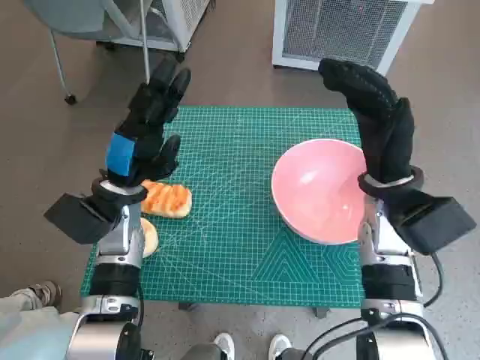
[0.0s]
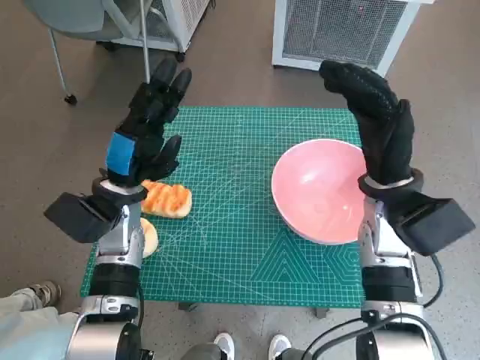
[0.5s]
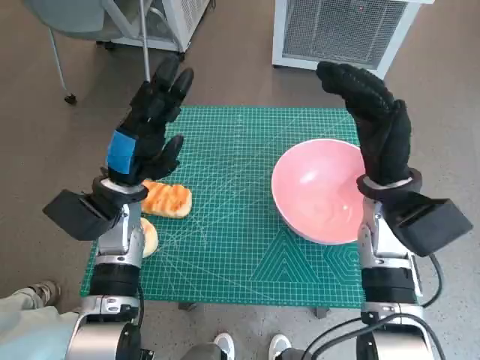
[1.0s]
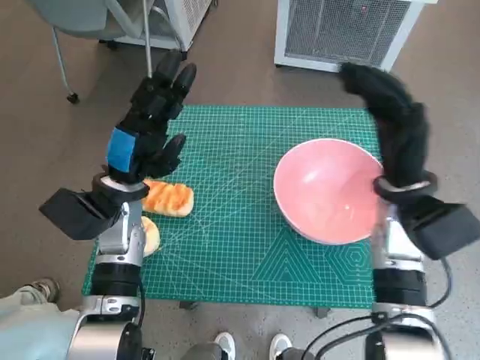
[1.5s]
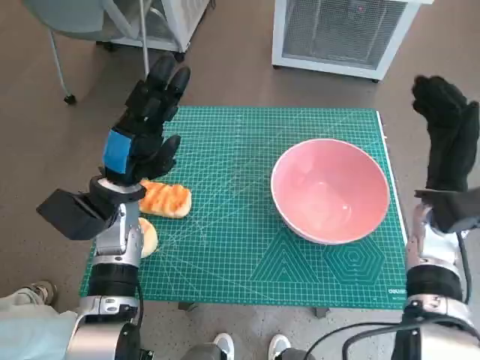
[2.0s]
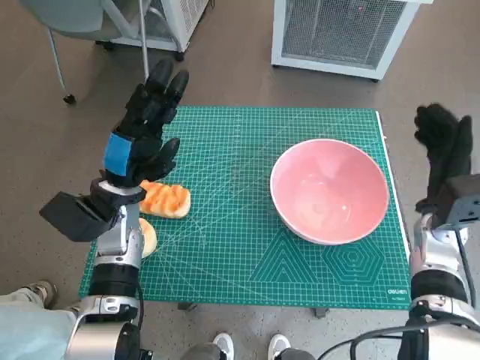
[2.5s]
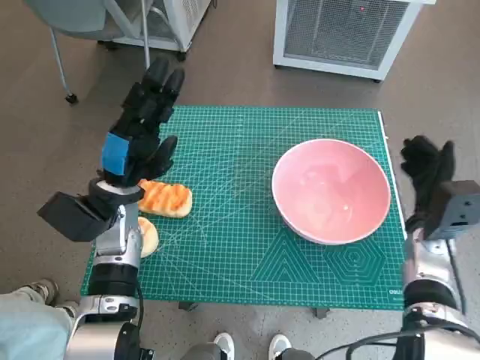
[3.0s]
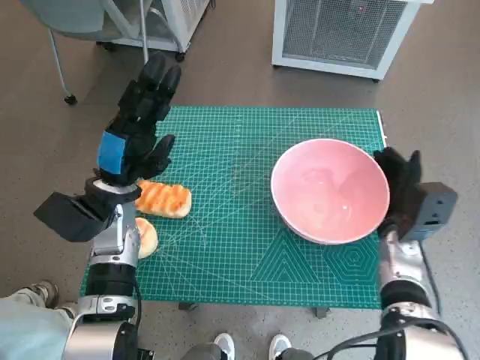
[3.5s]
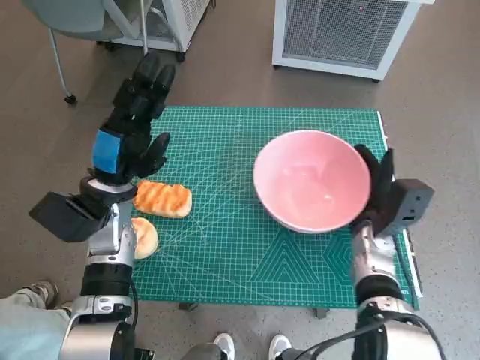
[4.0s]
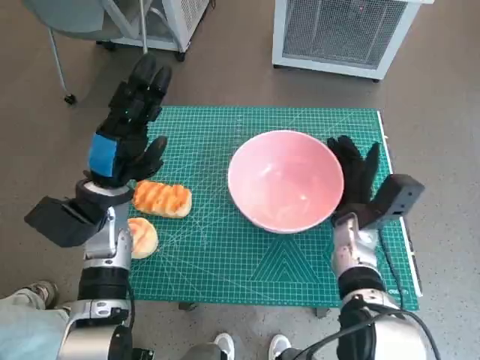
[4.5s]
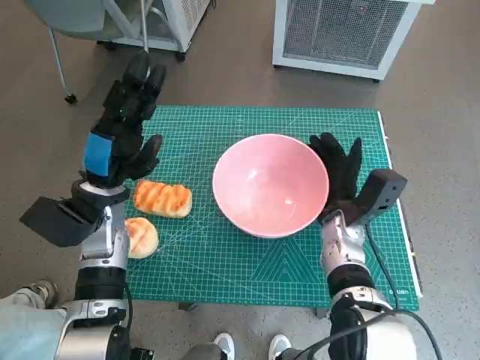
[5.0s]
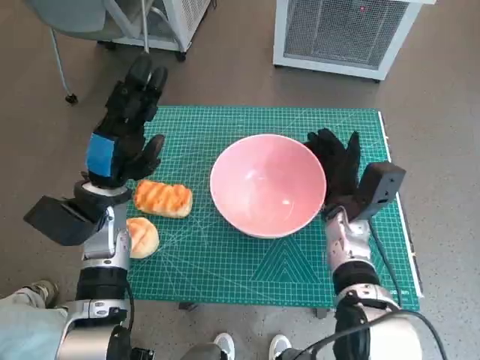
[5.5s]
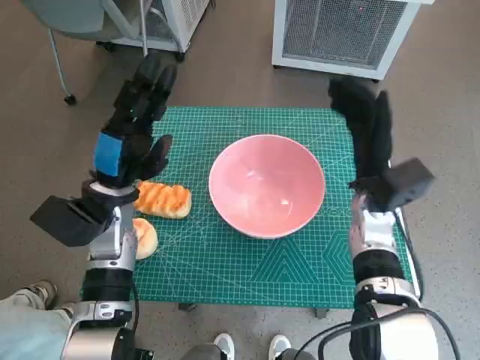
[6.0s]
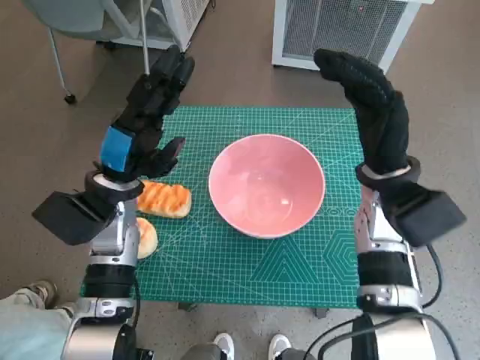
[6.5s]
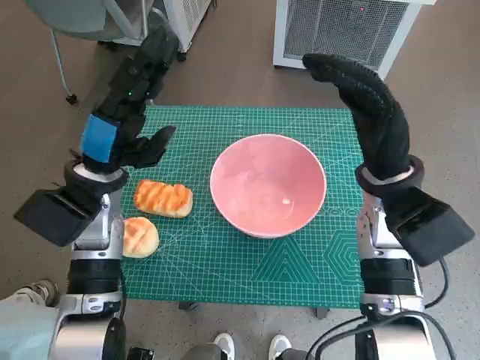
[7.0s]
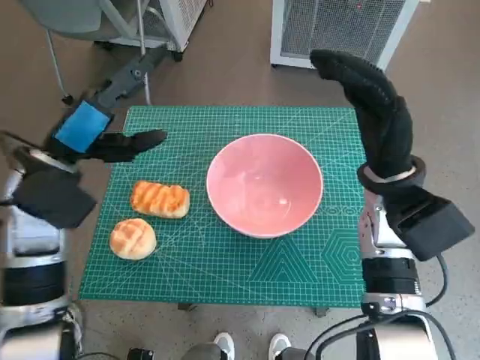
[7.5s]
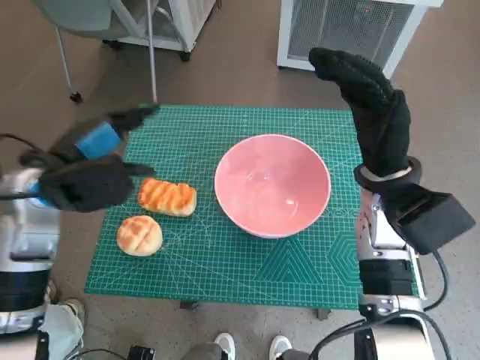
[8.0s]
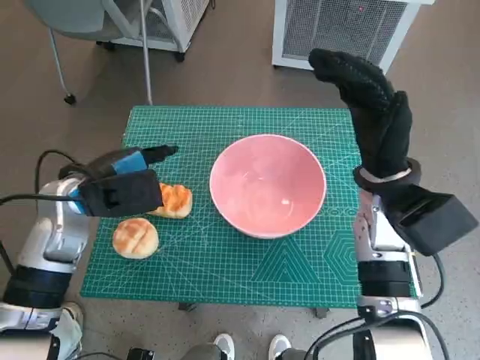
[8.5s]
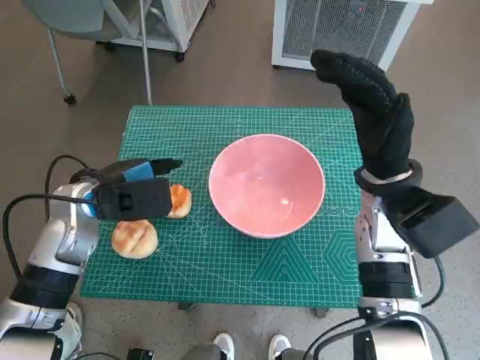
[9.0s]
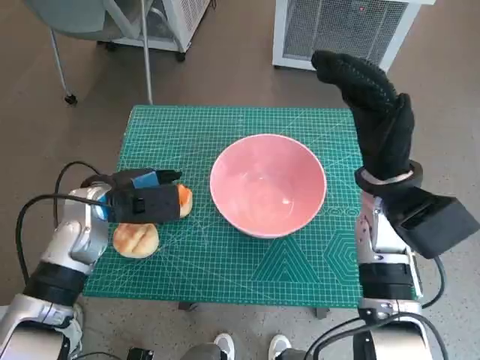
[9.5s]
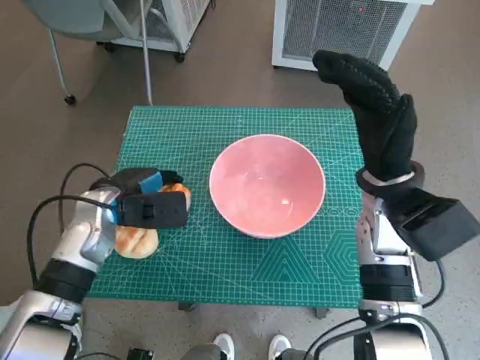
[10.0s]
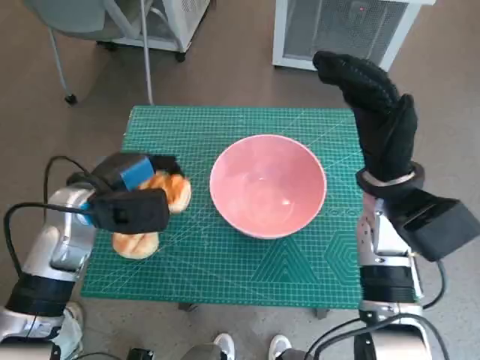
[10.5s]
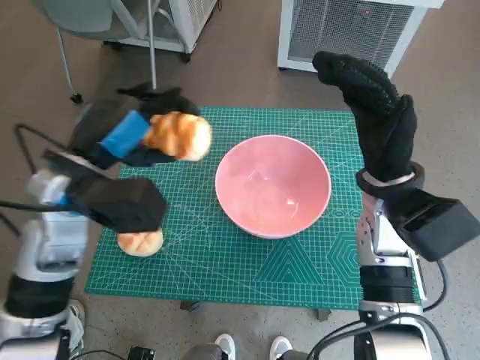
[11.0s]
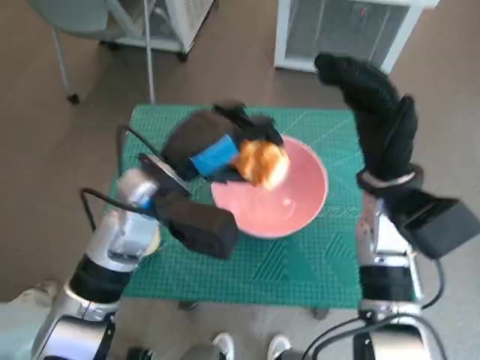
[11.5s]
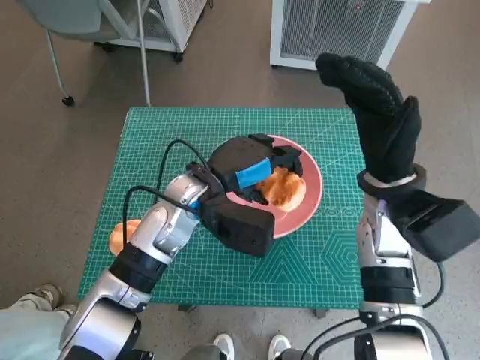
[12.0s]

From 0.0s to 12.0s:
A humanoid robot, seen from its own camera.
Task of the whole recording: Push the bowl to the center of the table and put the bread into the bowl.
Step, from 0.0s to 5.5s: Move the pink bowl to the center of table with right hand.
Step, from 6.0s to 10.0s: Grasp the long bread with left hand.
From 2.0s to 4.0s: The right hand is displaced downward and to the left by some 10 cm.
From 4.0s to 6.0s: The right hand travels upward by about 5 cm.
From 6.0s to 8.0s: The two hands go roughly 5 cm upward.
From 8.0s to 10.0s: The left hand goes some 10 cm downward.
From 10.0s to 12.0s: The left hand heads to the right, covering roughly 15 cm.

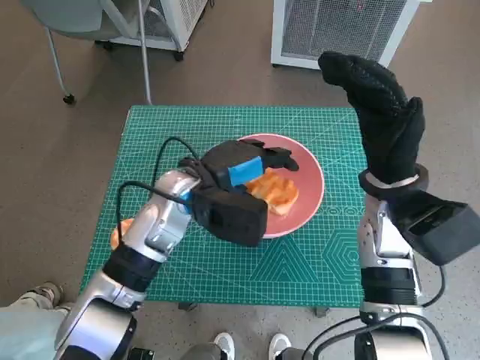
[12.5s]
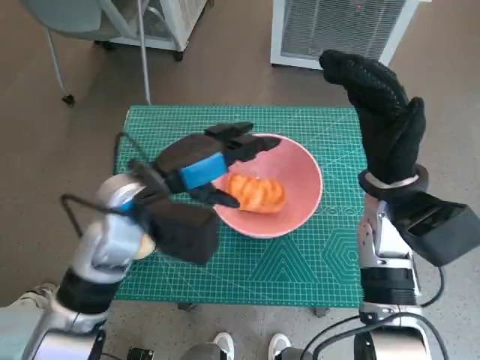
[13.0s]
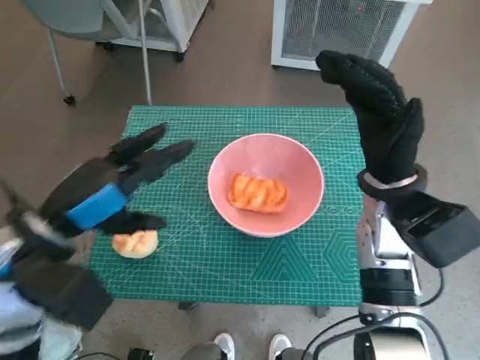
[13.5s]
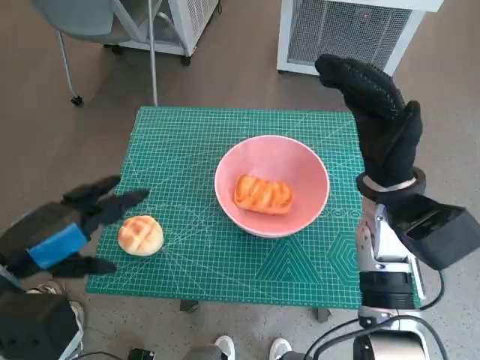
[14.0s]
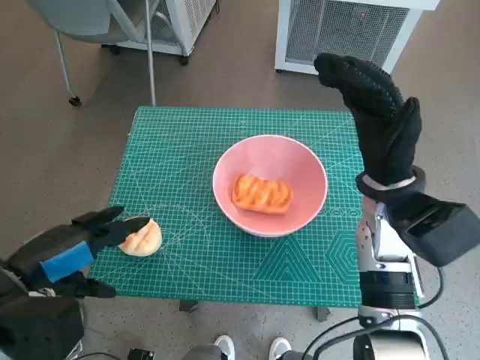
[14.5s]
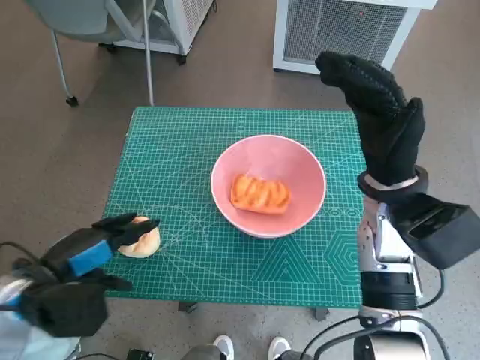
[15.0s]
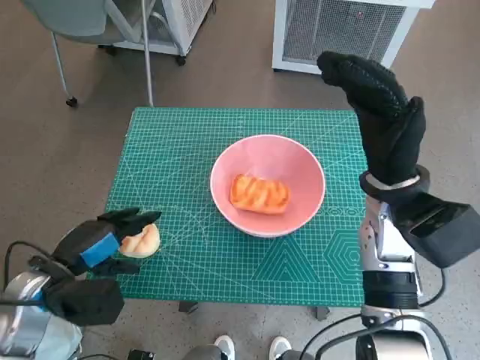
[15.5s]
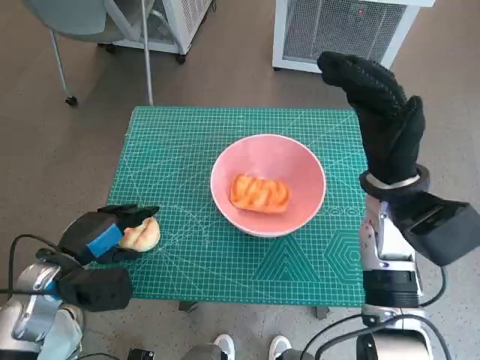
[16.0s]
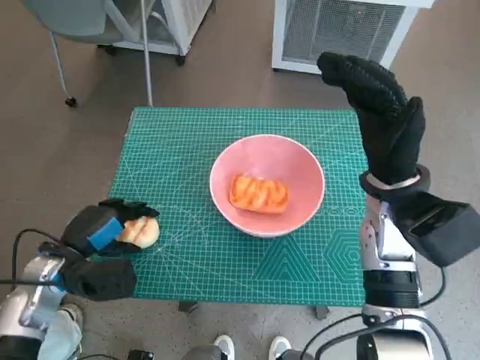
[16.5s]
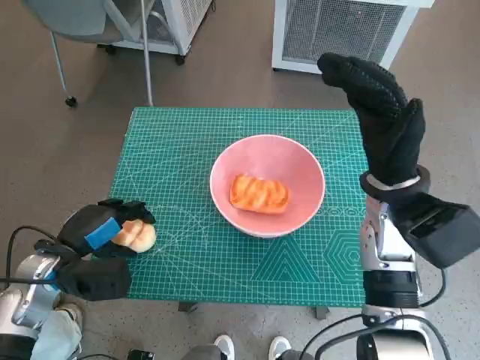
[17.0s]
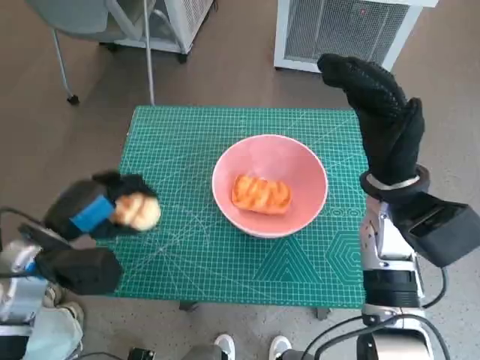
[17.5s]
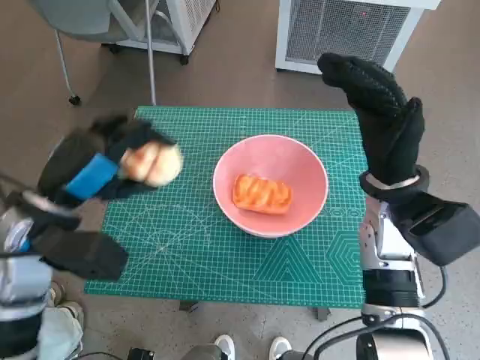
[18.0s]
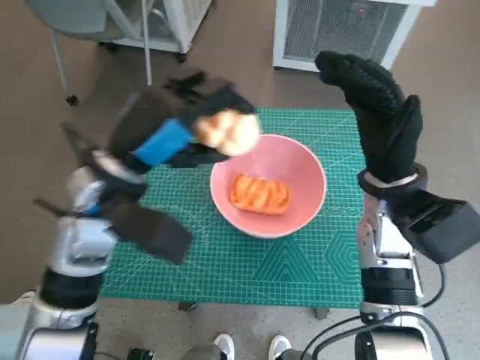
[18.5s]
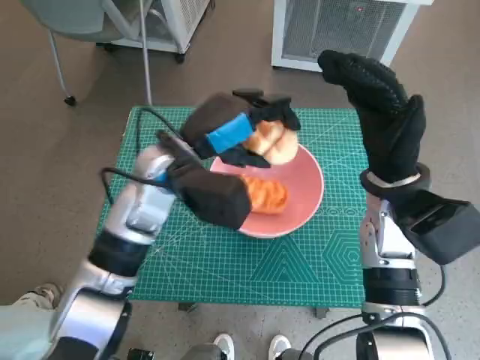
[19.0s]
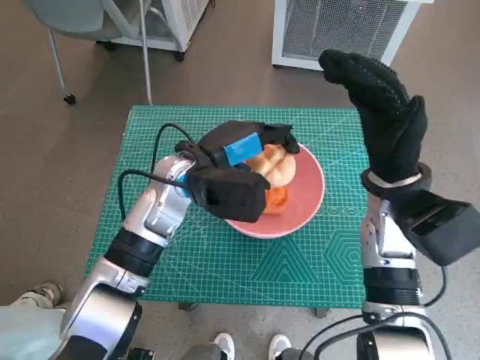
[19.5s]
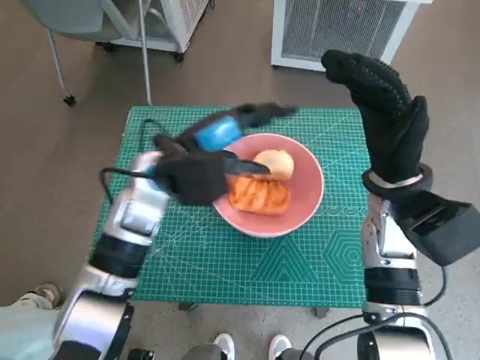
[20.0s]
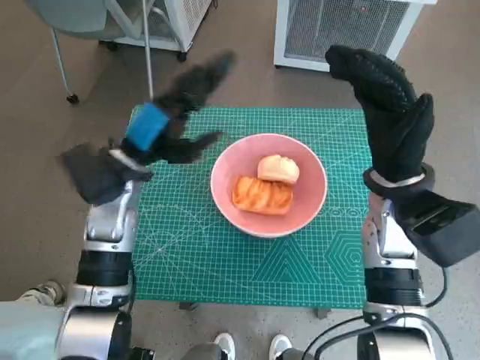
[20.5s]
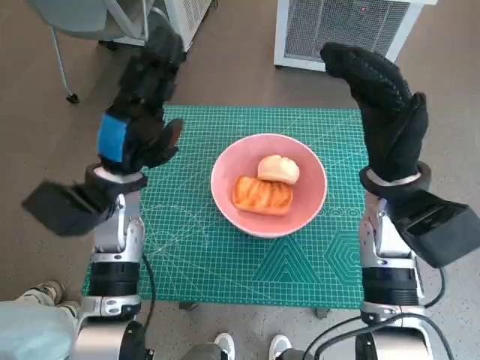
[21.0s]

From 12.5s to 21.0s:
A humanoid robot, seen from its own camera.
Task of the whole recording: Push the bowl to the center of the table and put the bread into the bowl.
Step, from 13.0s to 16.5s: Grasp the round bread with left hand.
Step, from 17.0s to 20.0s: Place the round bread in pink bowl with left hand.
From 12.5s to 14.5s: The left hand shifts about 25 cm to the left and backward.
From 14.5s to 16.5s: The left hand goes approximately 10 cm downward and forward.
From 16.5s to 19.0s: The left hand shifts approximately 25 cm to the right, upward and forward.
From 19.0s to 21.0s: The left hand is displaced to the left by about 10 cm.

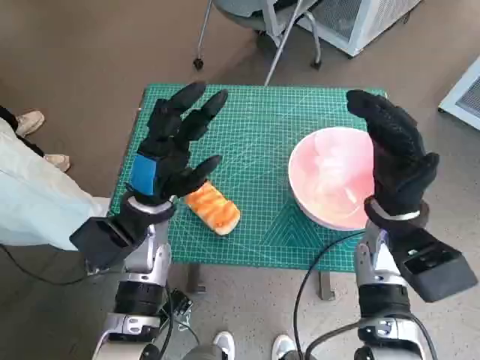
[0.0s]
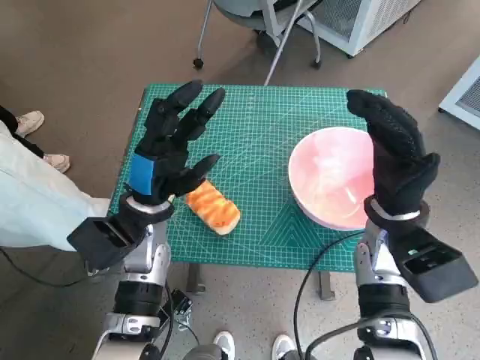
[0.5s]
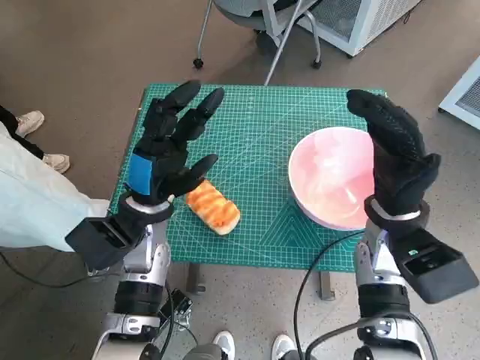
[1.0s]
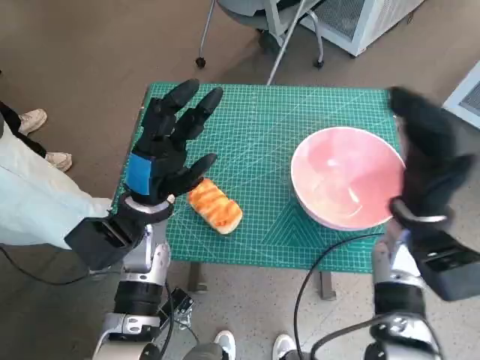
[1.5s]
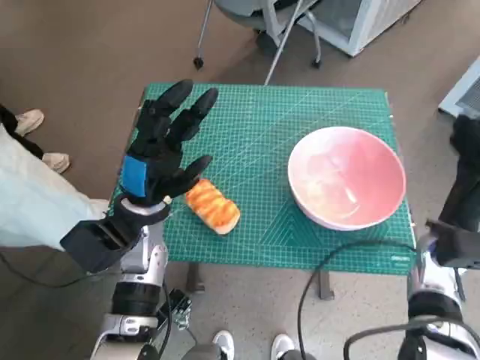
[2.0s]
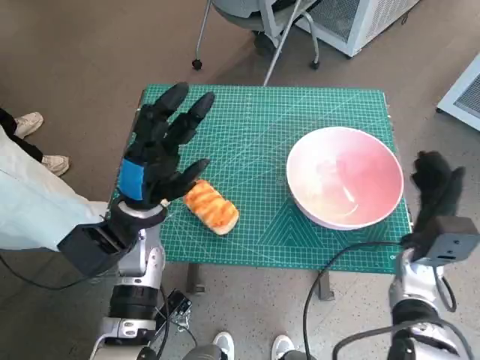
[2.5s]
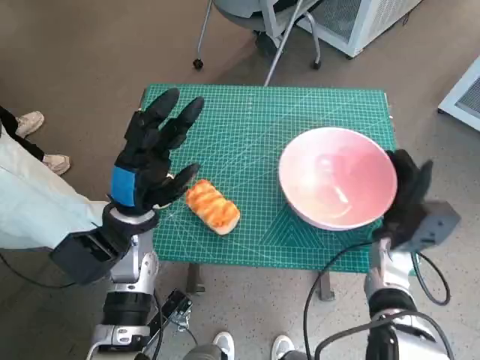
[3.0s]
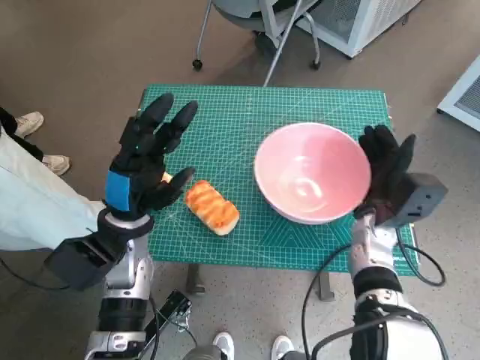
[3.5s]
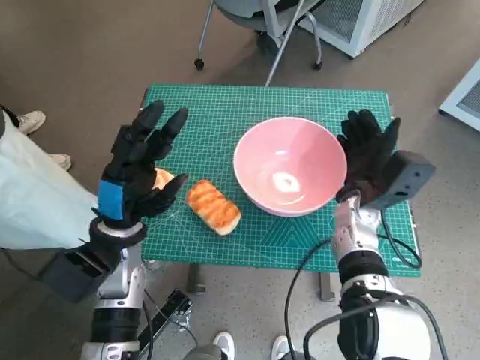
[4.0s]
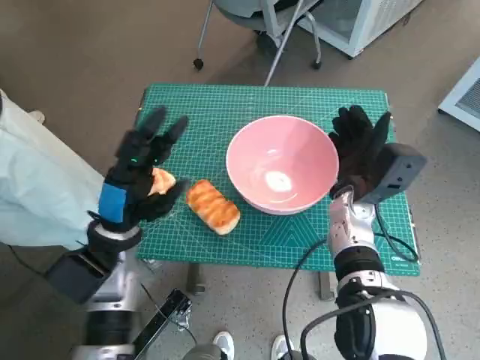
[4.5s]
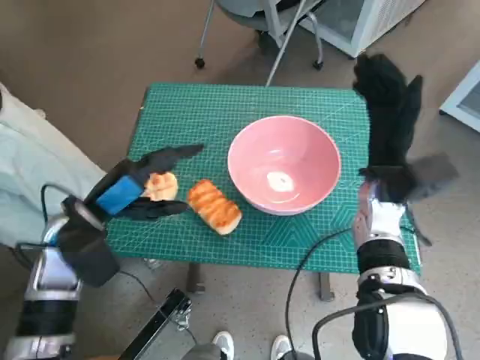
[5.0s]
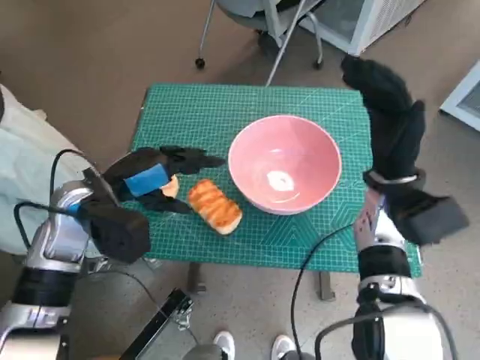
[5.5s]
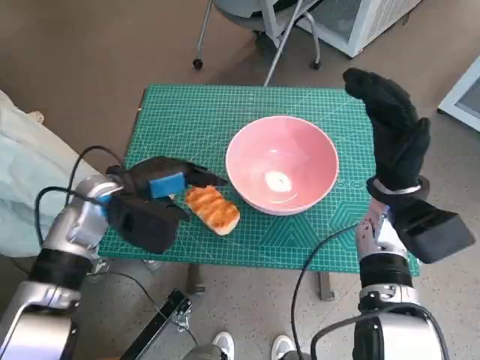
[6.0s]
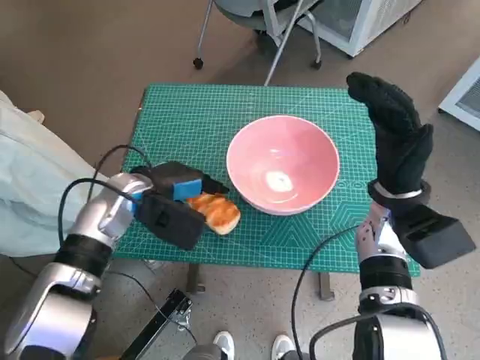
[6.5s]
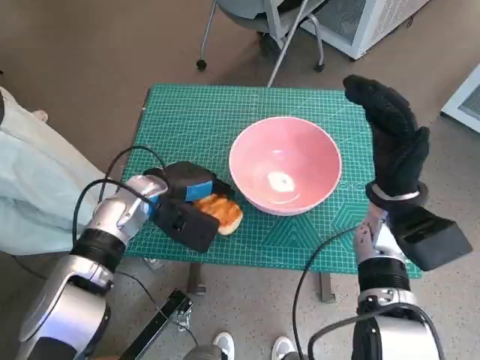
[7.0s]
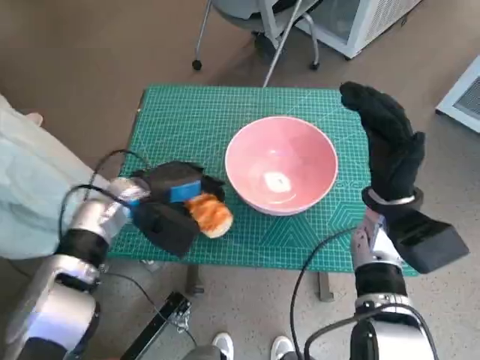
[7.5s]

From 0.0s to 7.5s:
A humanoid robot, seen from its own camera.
Task of the whole recording: Push the bowl to the center of the table and put the bread into the bowl.
Step, from 0.0s to 4.5s: Move the pink bowl to the center of table with right hand.
Step, from 5.0s to 7.0s: Grasp the long bread with left hand.
From 2.0s to 4.0s: The right hand goes roughly 10 cm to the left and forward.
From 4.0s to 5.5s: Both hands travel together upward, roughly 5 cm.
From 5.5s to 7.5s: The left hand heads downward, covering roughly 5 cm.
